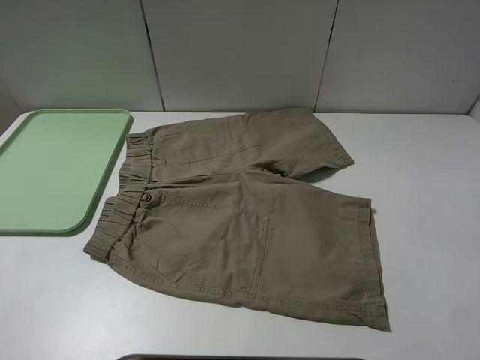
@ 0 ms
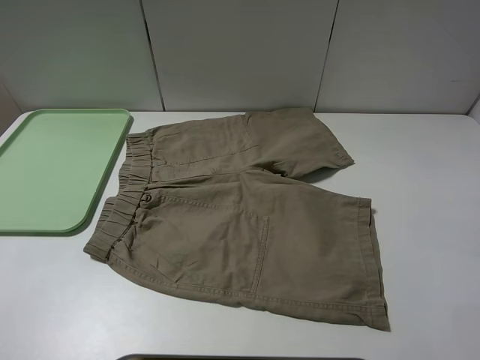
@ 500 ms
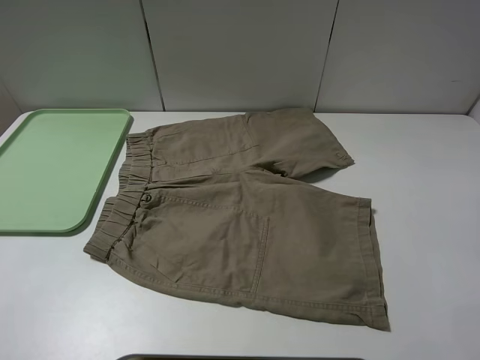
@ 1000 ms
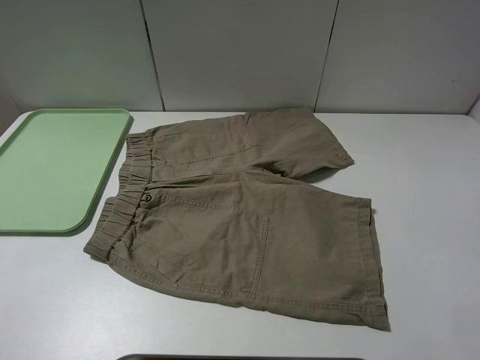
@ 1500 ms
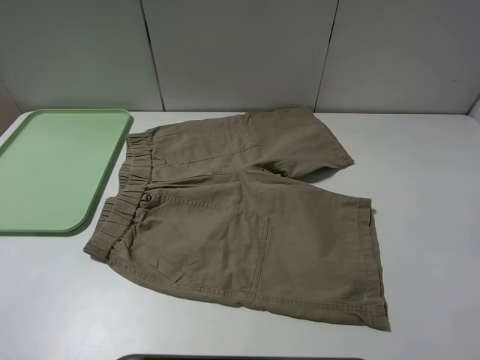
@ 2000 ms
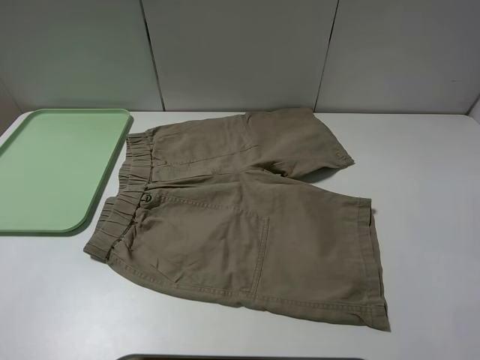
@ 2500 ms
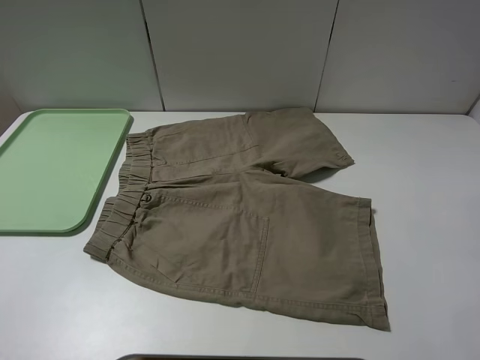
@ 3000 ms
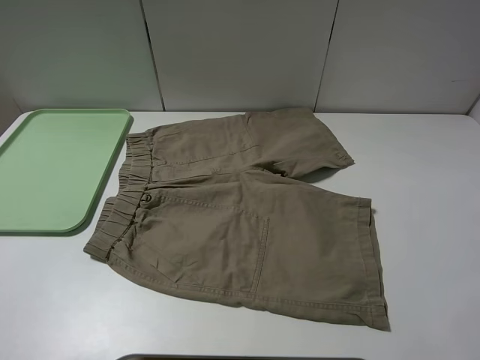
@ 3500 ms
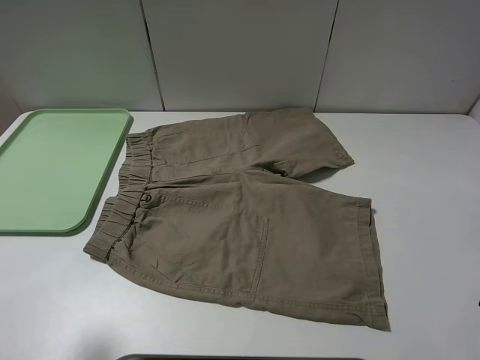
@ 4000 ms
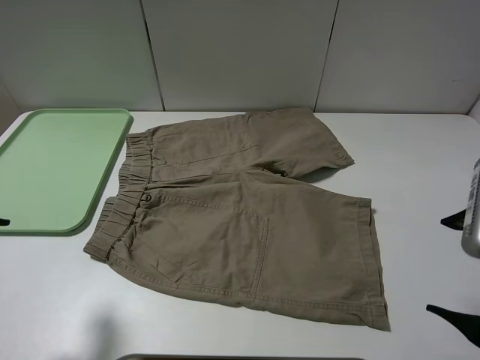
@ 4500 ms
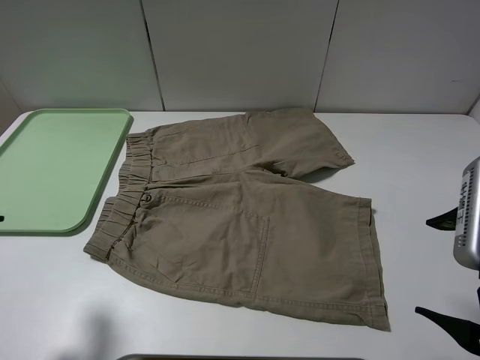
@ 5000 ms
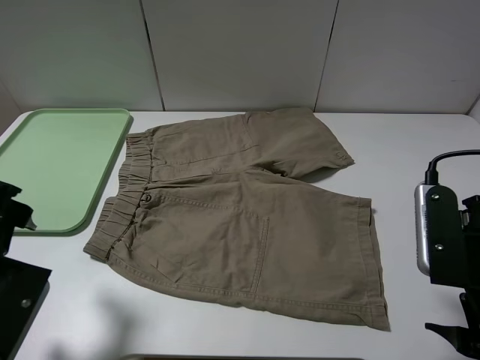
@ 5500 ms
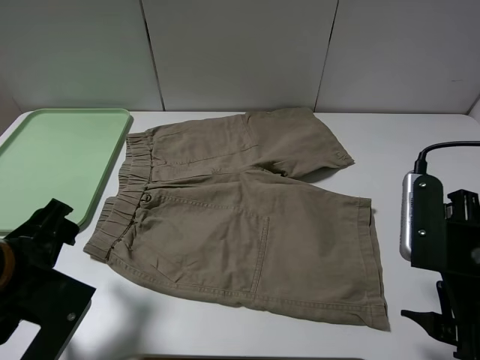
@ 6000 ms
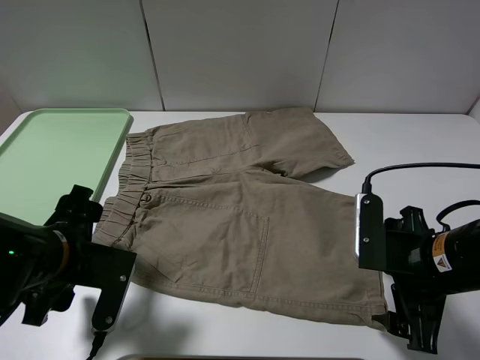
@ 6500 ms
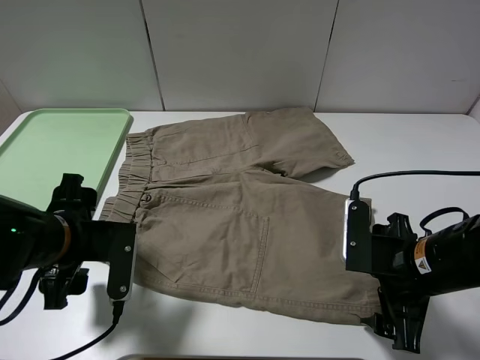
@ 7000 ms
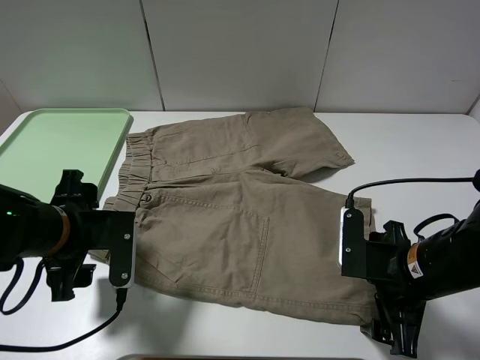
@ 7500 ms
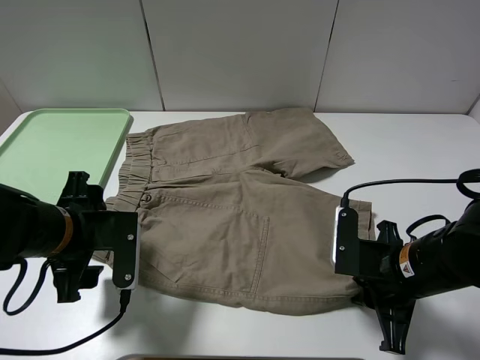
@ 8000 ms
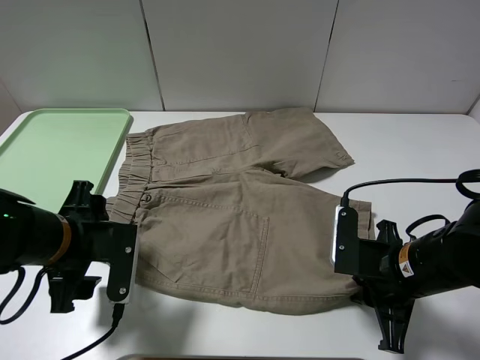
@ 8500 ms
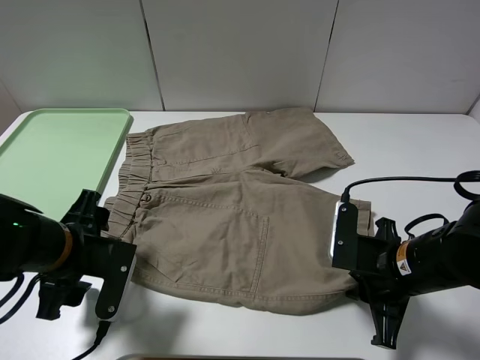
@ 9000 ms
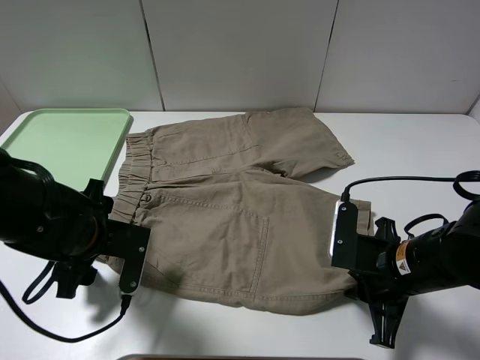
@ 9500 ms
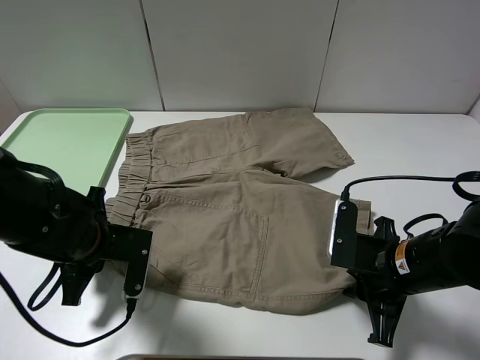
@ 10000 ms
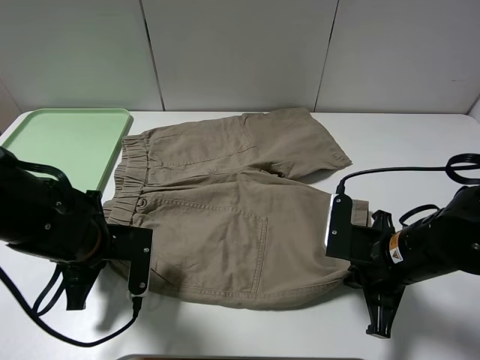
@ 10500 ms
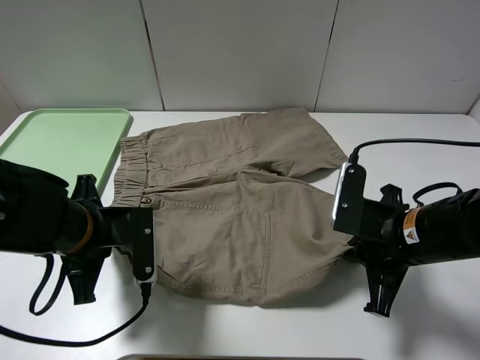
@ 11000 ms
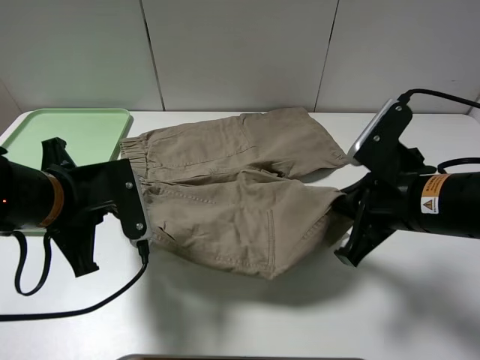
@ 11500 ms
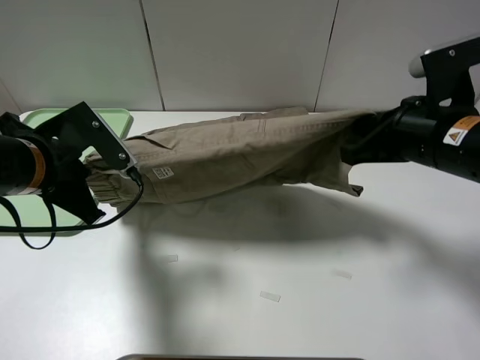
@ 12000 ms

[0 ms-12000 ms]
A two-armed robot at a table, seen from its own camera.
Task of the whole recording: fold the khaki jeans in half with two grippers, then fold them in half again, and use the left claw to place the folded fold khaki jeans on the tray.
Step, 0 ms to 10000 ms: Grasp the khaki trousers with the left gripper.
2000 ms to 4000 ms: The left gripper travels forward by approximately 5 cm.
4000 ms to 6000 ms: The right gripper goes some 10 cm downward and forward; the left gripper heads downward, to the right and forward, covering some 15 cm.
6000 ms to 8000 ms: The left gripper is displaced forward by some 5 cm, while the right gripper moves downward, about 10 cm, and closes.
8000 ms to 10000 ms: The left gripper closes.
10000 ms to 12000 ms: The right gripper is displaced upward and forward by roughly 15 cm, while the left gripper shifts approximately 10 cm upward.

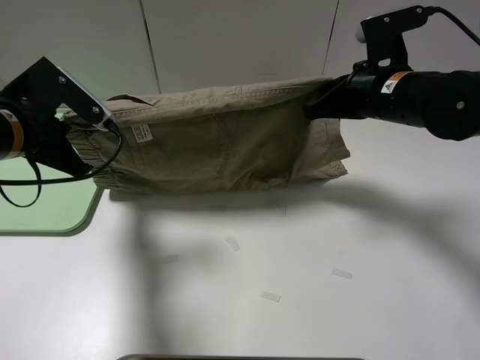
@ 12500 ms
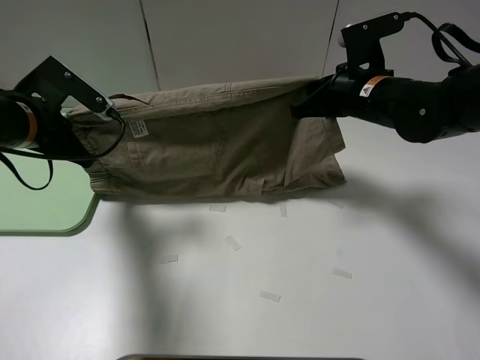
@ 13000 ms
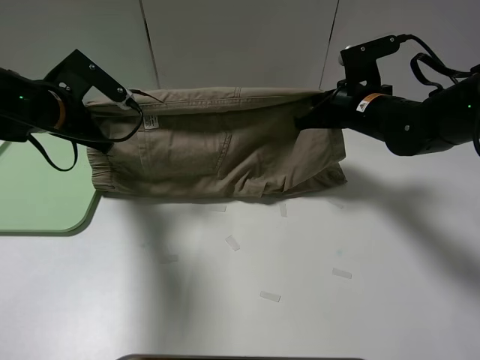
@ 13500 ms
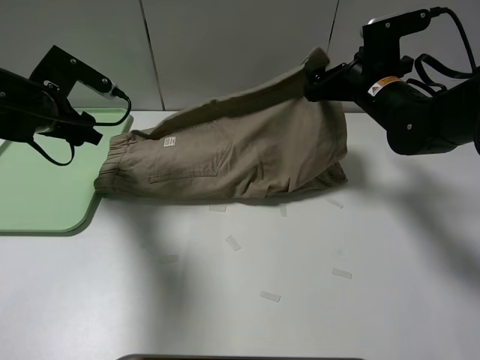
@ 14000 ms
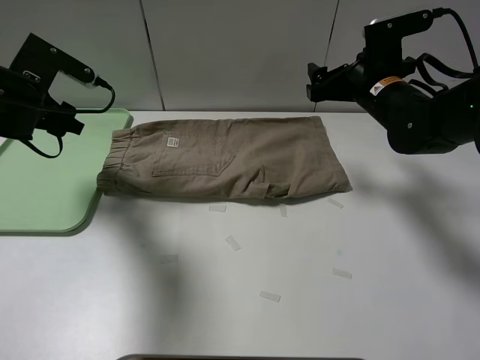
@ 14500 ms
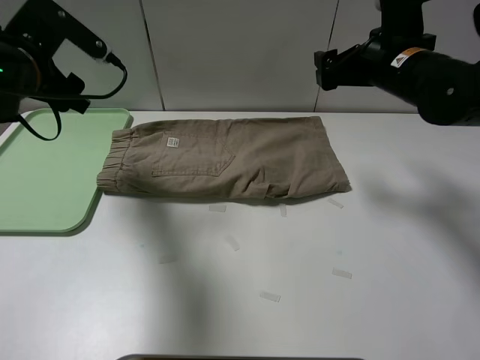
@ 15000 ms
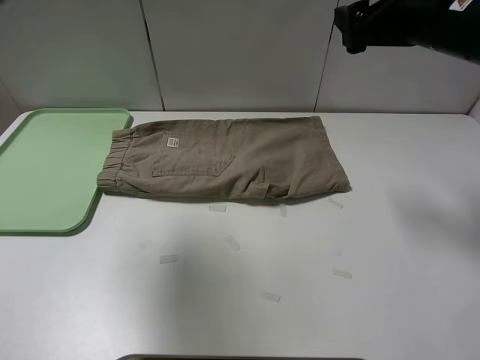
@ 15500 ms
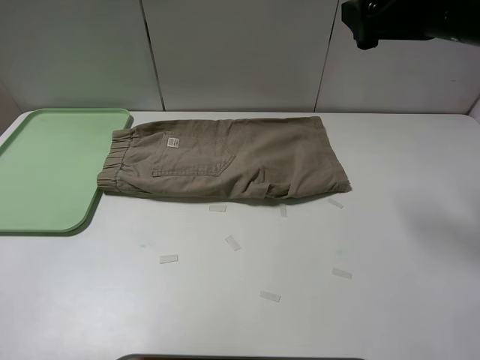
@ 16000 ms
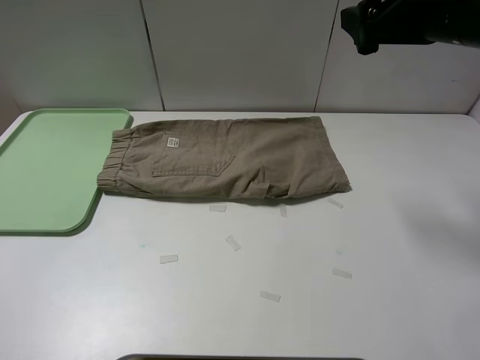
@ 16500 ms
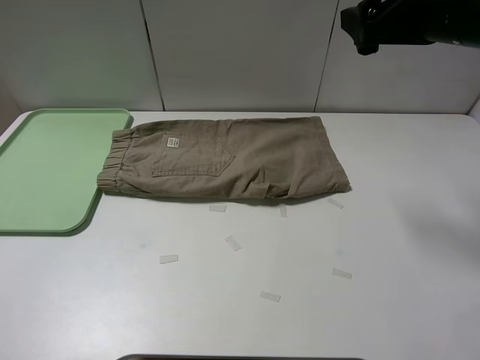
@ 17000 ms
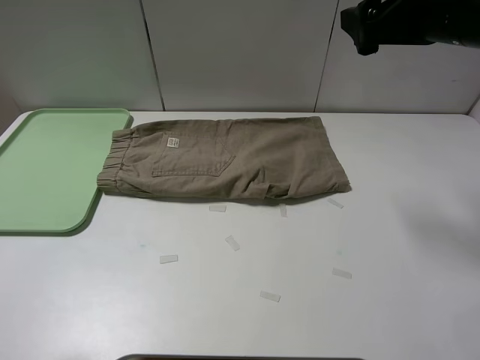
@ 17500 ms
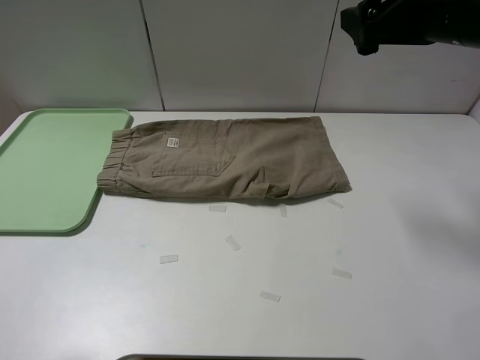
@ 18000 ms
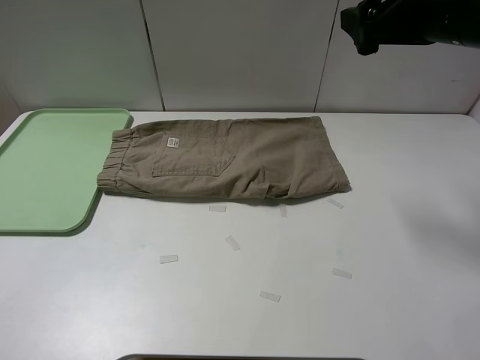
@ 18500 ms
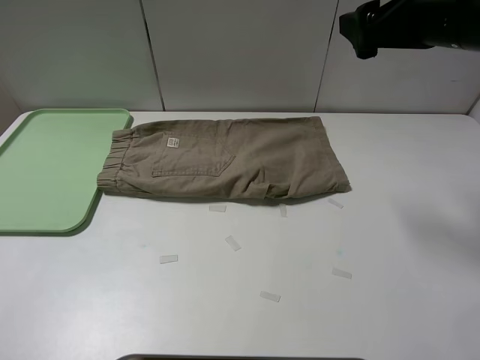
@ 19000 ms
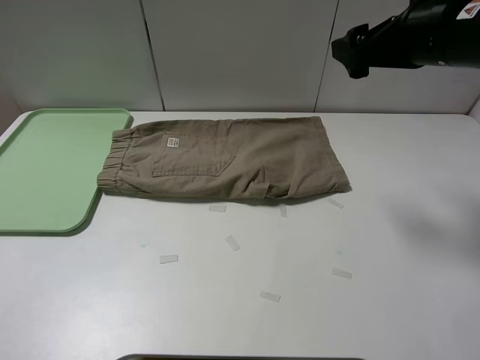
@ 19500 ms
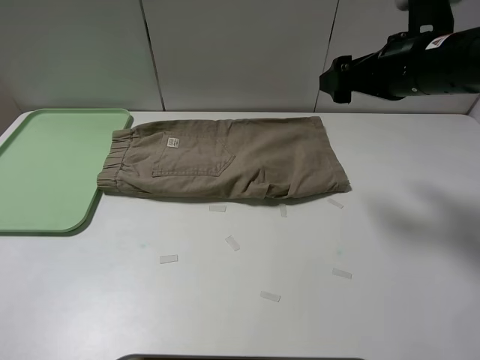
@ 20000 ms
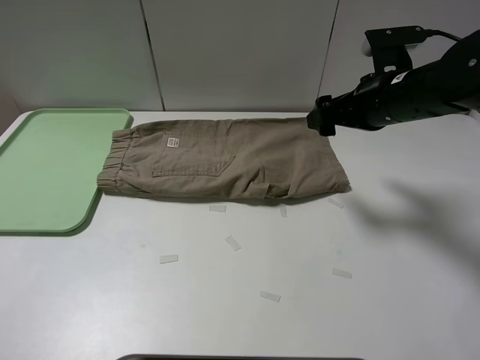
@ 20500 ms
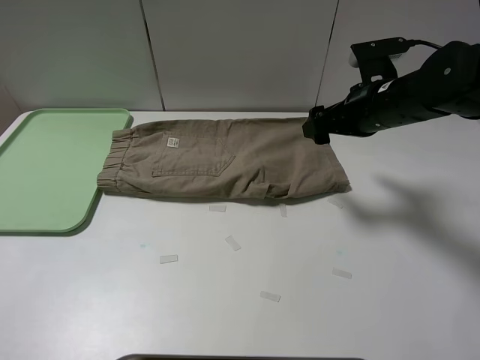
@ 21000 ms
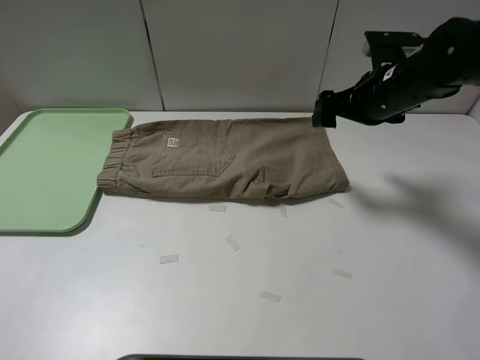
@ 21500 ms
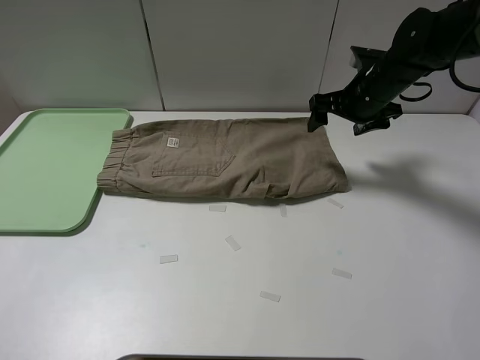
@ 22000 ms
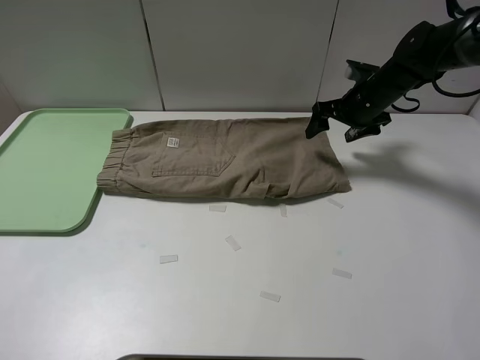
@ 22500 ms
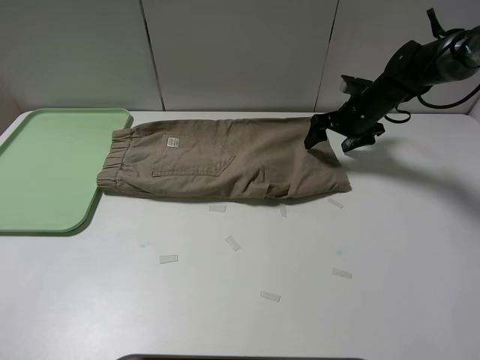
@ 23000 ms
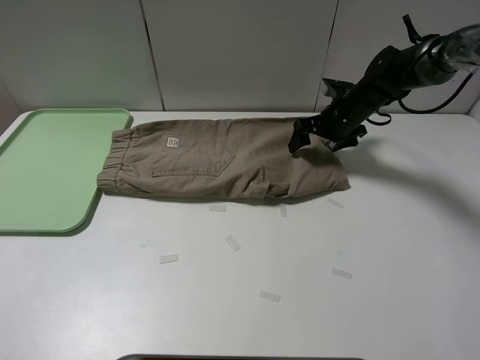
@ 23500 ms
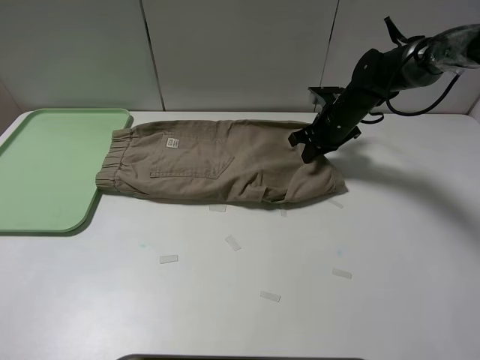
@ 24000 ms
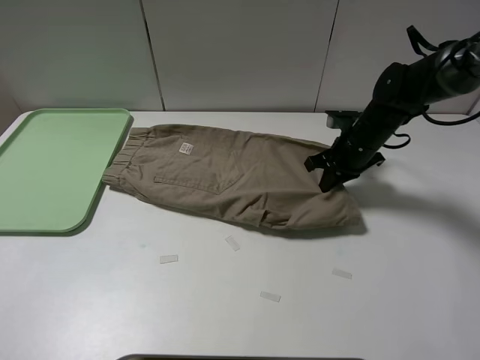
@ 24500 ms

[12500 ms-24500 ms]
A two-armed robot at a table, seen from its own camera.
Task of the whole recording: fold the khaki jeans in half with two grippers, then fold them in half again, and use the left claw to place the folded fold khaki jeans on the tray.
Step, 14500 ms to 24000 ms: Grasp the khaki trousers with the right gripper.
12500 ms to 14500 ms: The right gripper ends up roughly 5 cm from where it was, and opens its fingers, while the left gripper goes some 10 cm forward, and opens its fingers.
14500 ms to 16500 ms: The left gripper travels backward and upward by approximately 35 cm. The right gripper goes roughly 15 cm upward and backward.
18500 ms to 20500 ms: The right gripper shifts some 10 cm downward.
20500 ms to 22500 ms: The right gripper shifts approximately 15 cm forward and downward.
22500 ms to 24500 ms: The right gripper is displaced backward by about 10 cm, and closes its fingers.

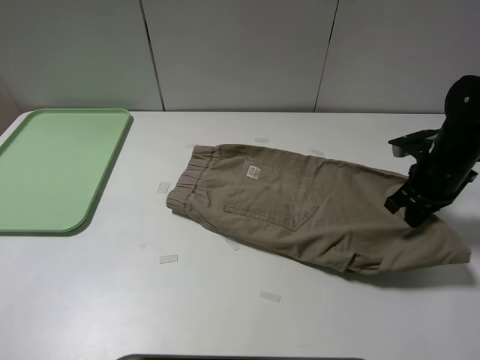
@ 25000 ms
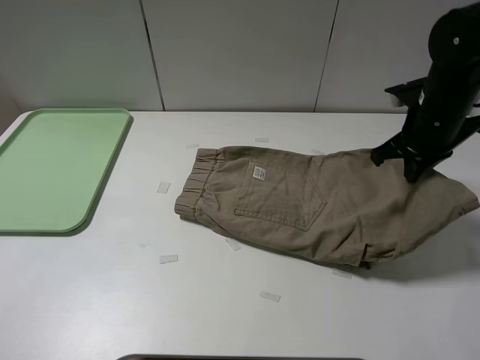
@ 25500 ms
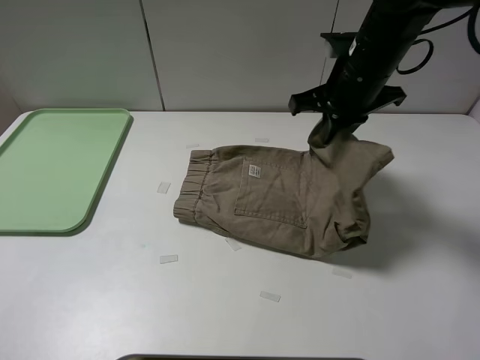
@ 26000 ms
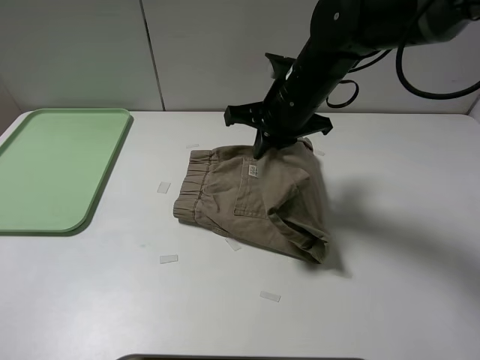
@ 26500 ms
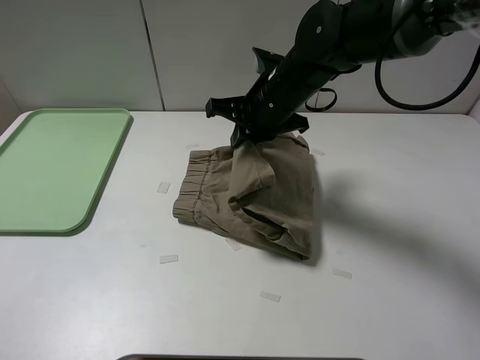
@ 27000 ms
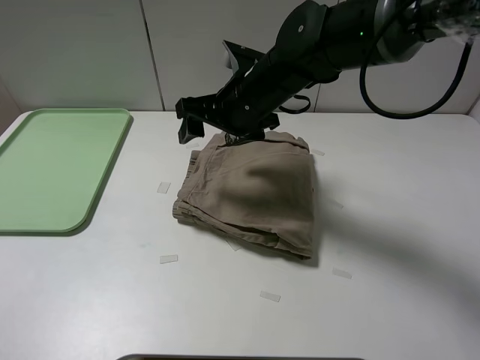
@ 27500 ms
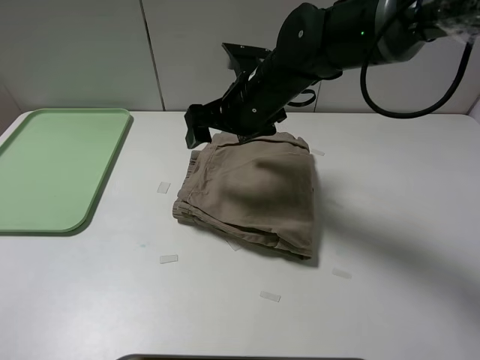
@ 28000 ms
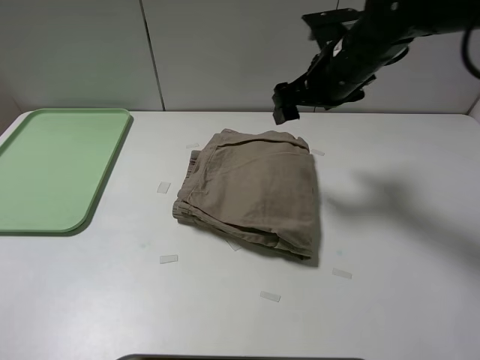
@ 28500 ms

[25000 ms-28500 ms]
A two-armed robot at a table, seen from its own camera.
Task of the whole recording: fold the khaki jeans in half with two grippers, then fold them in half again, and use the left claw to place the folded fold khaki jeans on the tray.
Step, 25000 ms to 27000 ms: Fold the khaki trousers from right to left with the right gripper.
25000 ms to 27000 ms: The right gripper heads to the left, covering about 25 cm.
27000 ms to 28500 ms: The right gripper goes approximately 10 cm to the right, and opens its fingers.
